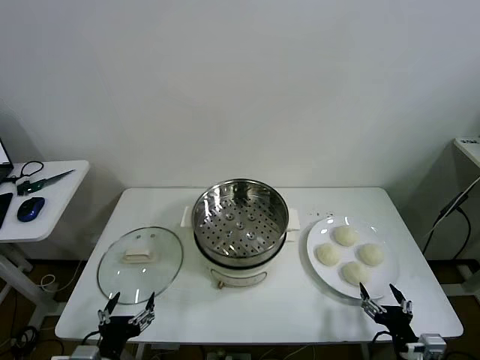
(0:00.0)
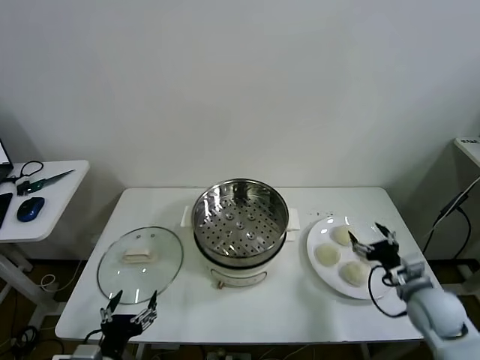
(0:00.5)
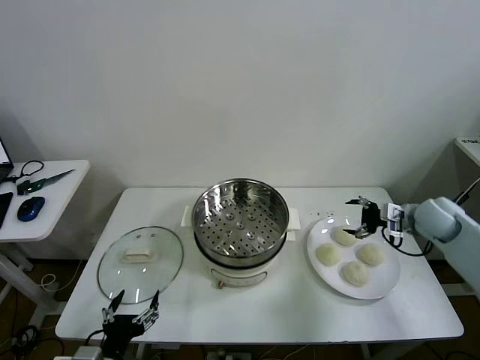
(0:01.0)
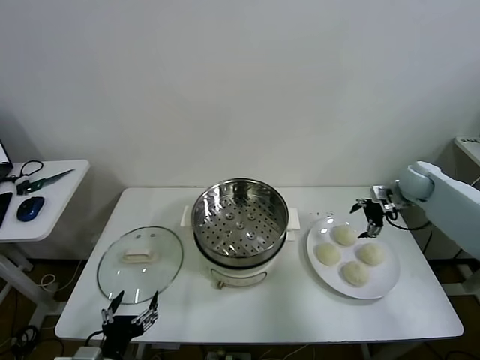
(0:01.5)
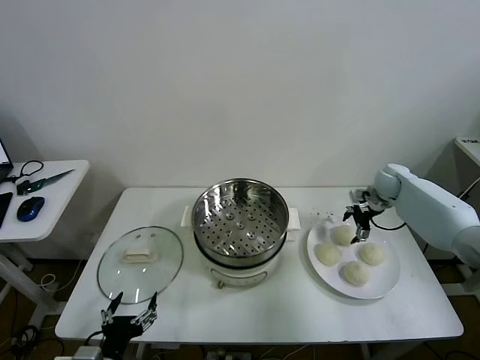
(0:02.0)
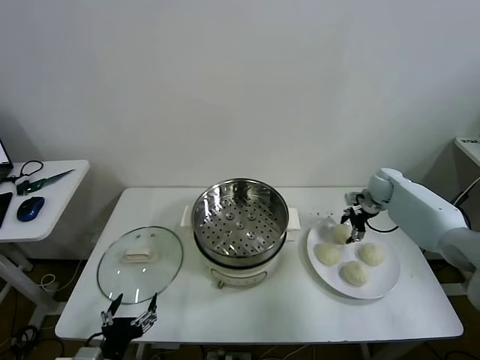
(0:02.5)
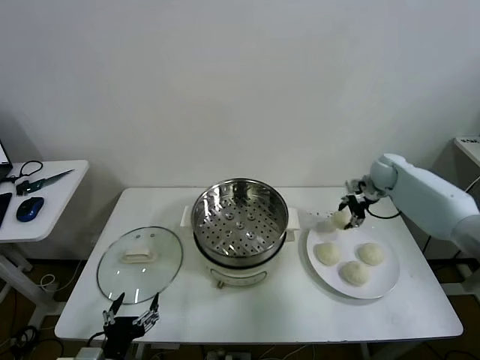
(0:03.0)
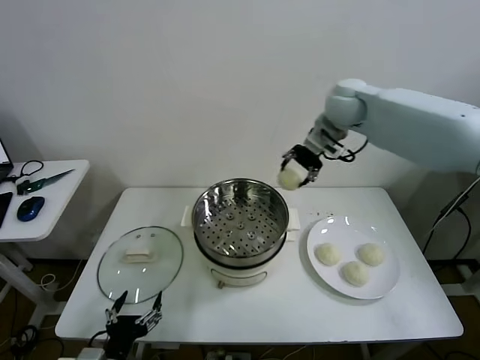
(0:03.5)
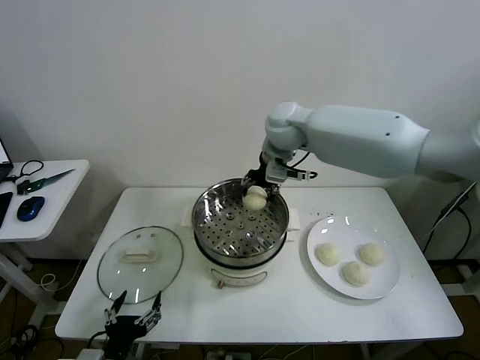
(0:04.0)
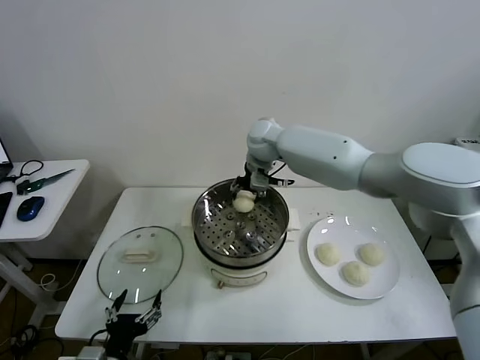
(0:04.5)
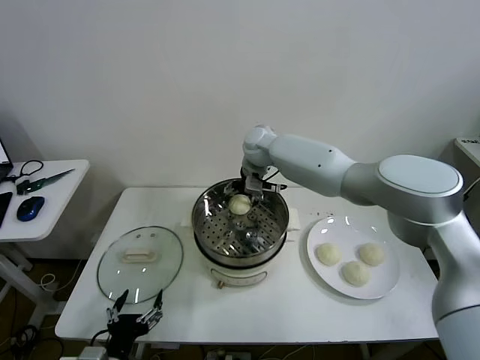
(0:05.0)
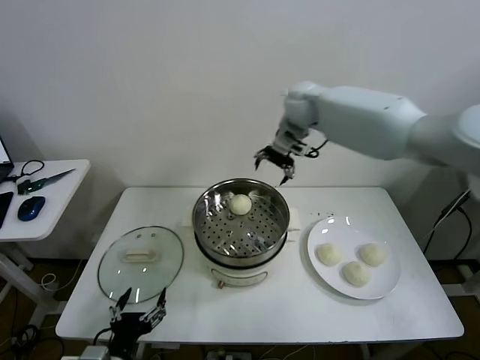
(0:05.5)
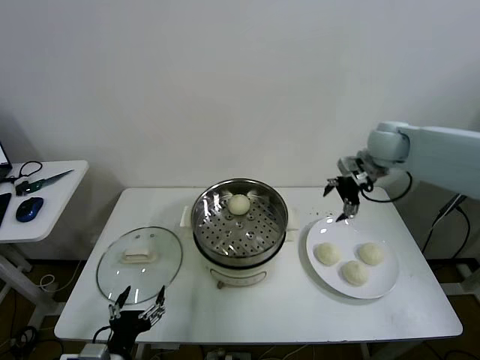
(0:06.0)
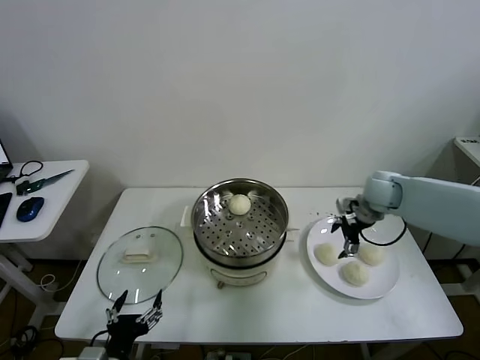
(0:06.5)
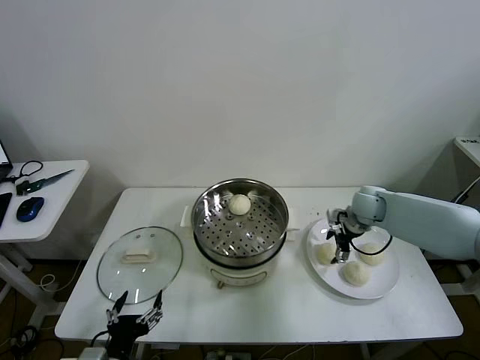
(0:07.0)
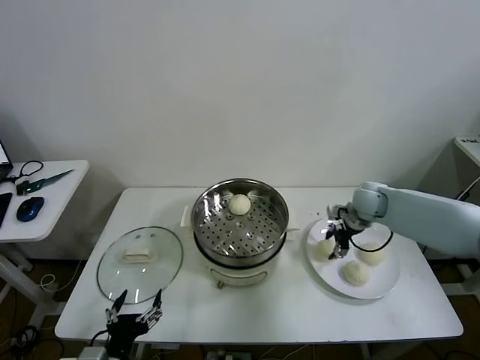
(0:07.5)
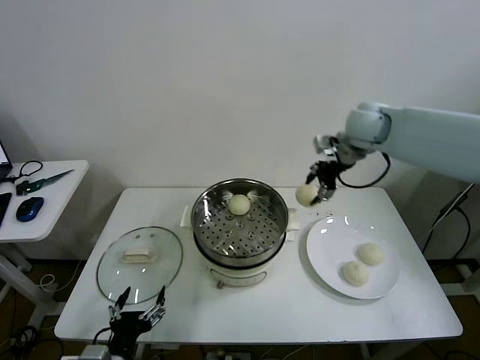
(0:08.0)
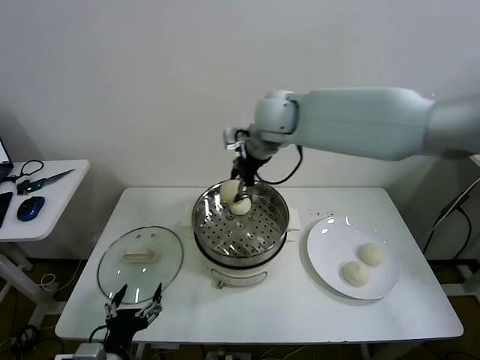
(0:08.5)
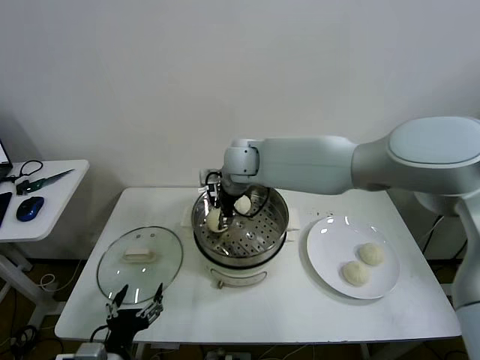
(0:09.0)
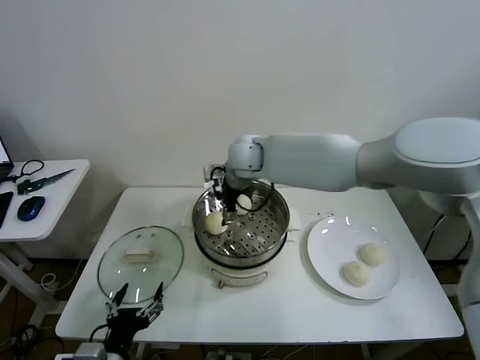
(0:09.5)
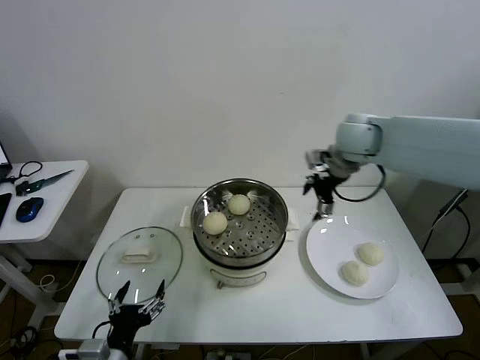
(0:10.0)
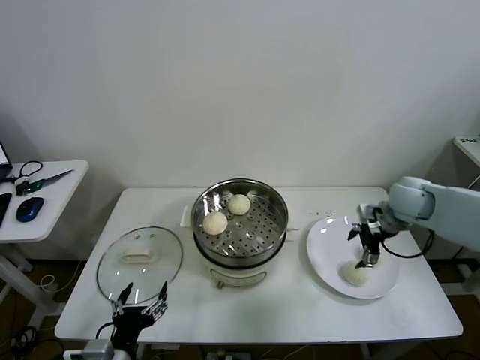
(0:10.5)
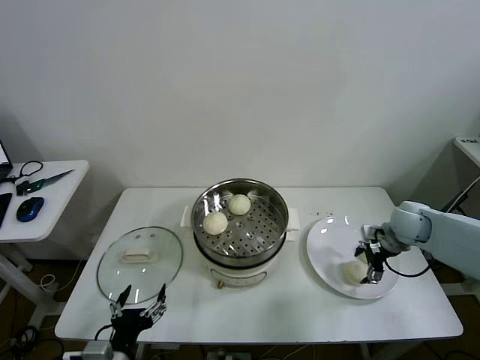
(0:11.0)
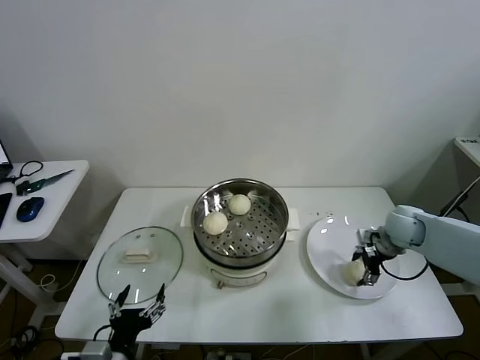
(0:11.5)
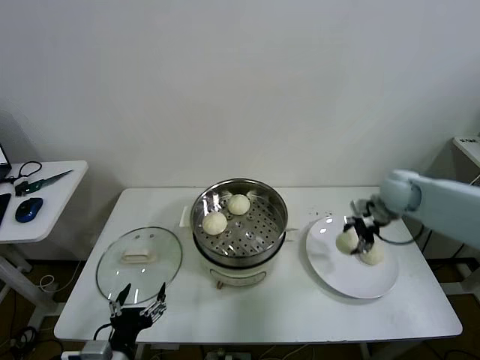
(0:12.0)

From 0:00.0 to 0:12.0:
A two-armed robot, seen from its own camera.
Task of the whole recording: take steamed baozi put them in steamer then cover it.
Step, from 0:00.0 to 0:02.5: Grasp the baozi in the plate with right gripper.
Step, from 0:03.0 to 0:05.0: Place the baozi on the steamer with right gripper.
Step, from 0:05.5 to 0:07.0: Grasp the baozi in the plate with right gripper.
Step, from 0:07.5 to 0:09.0: Place the baozi on the steamer with right gripper.
Step, from 0:09.5 to 0:11.5: Grasp the baozi in the plate with right gripper.
From 0:02.0 to 0:04.0: The right gripper travels to the left and upward by about 40 cm, and closes up.
From 0:04.0 to 0:06.0: The right gripper shifts some 25 cm to the right, and opens.
From 0:06.0 to 0:08.0: The right gripper moves to the left and upward, roughly 15 cm, and closes.
From 0:08.0 to 0:10.0: The right gripper heads downward, covering approximately 5 cm, travels to the left and back again, roughly 25 cm each way, and opens its fingers.
From 0:10.0 to 0:12.0: The right gripper goes roughly 15 cm downward and to the right, and closes up.

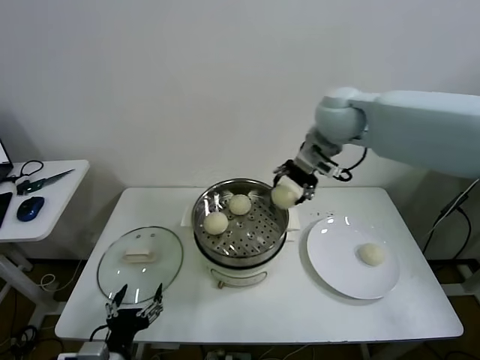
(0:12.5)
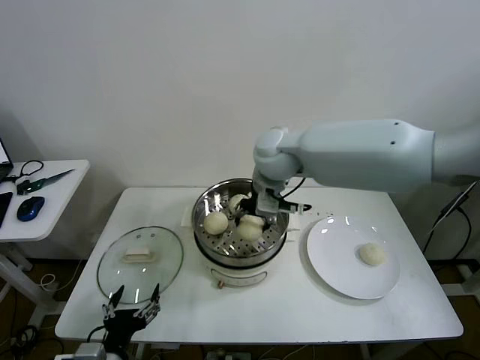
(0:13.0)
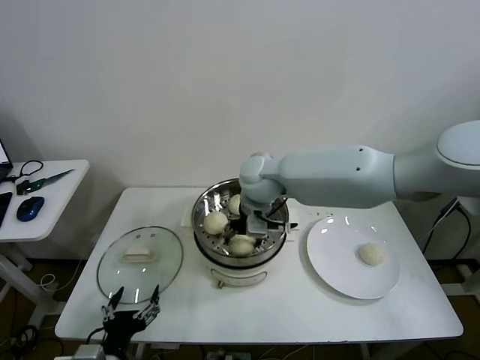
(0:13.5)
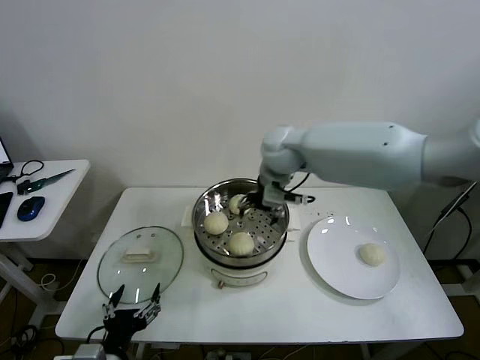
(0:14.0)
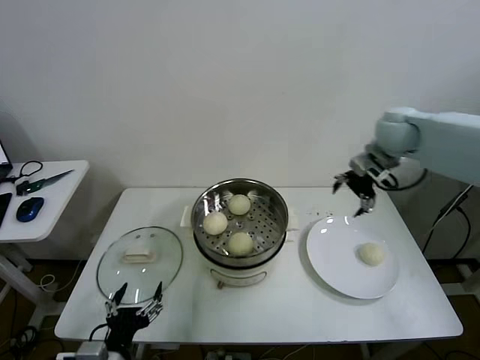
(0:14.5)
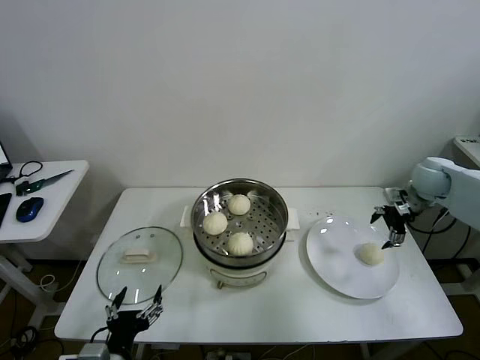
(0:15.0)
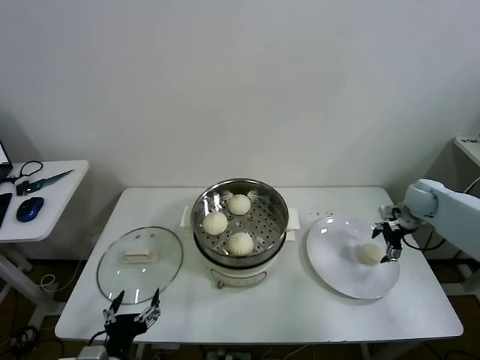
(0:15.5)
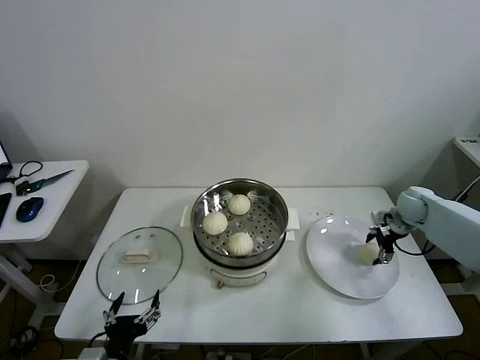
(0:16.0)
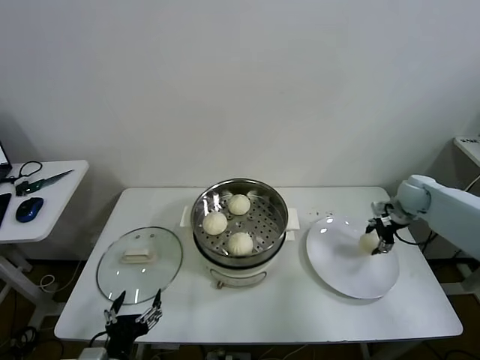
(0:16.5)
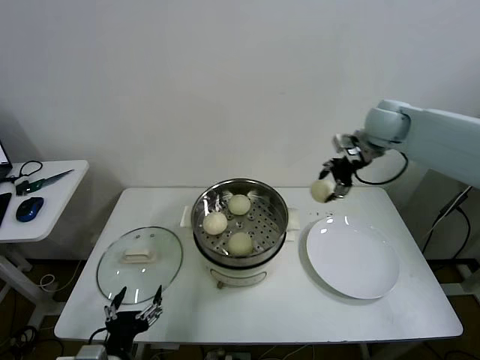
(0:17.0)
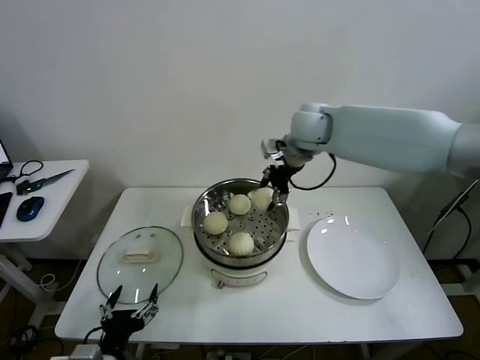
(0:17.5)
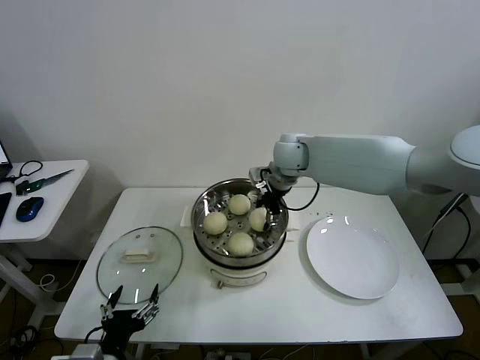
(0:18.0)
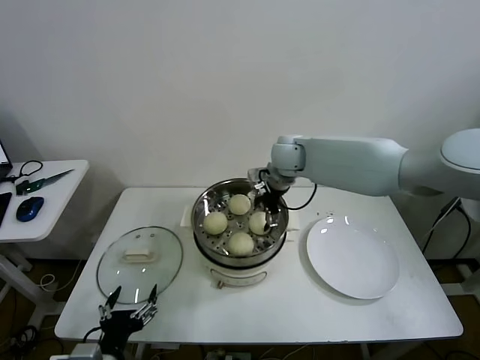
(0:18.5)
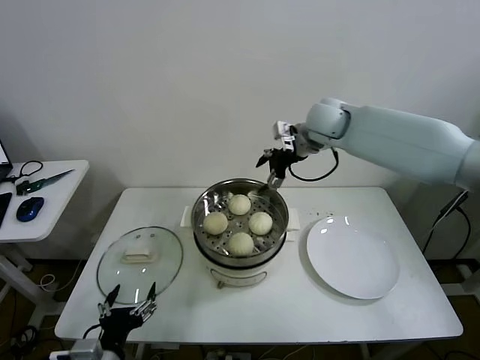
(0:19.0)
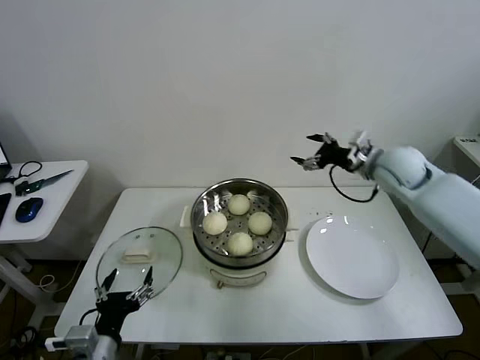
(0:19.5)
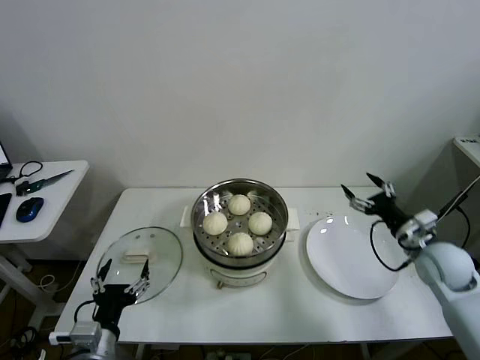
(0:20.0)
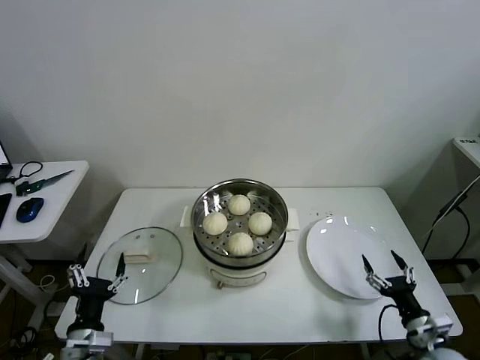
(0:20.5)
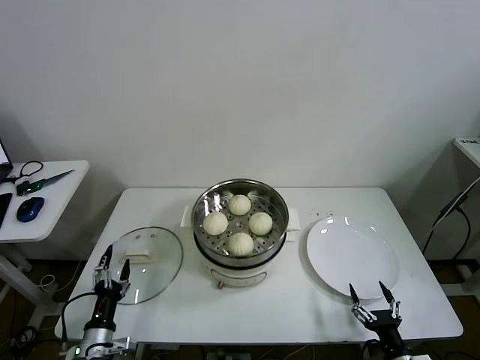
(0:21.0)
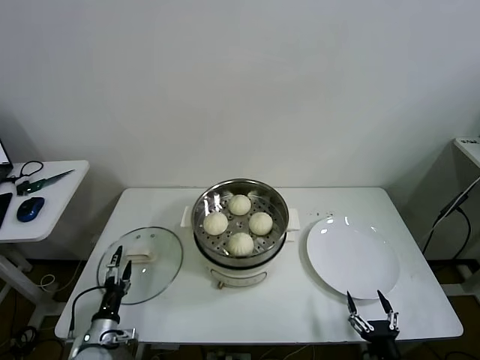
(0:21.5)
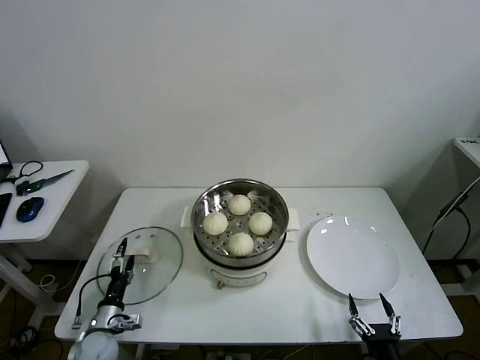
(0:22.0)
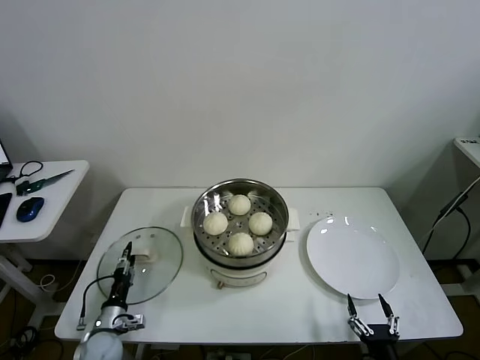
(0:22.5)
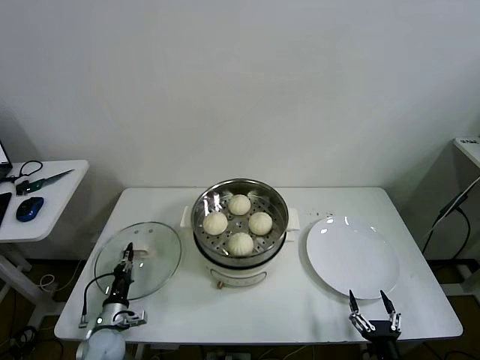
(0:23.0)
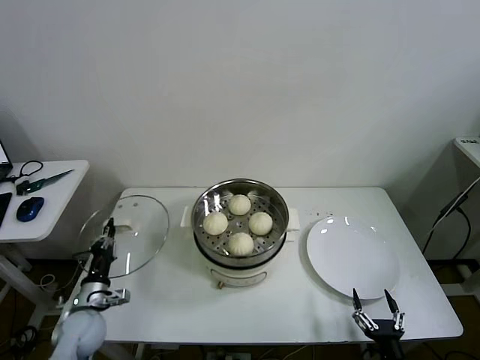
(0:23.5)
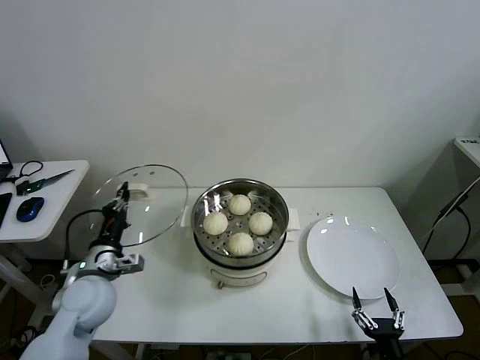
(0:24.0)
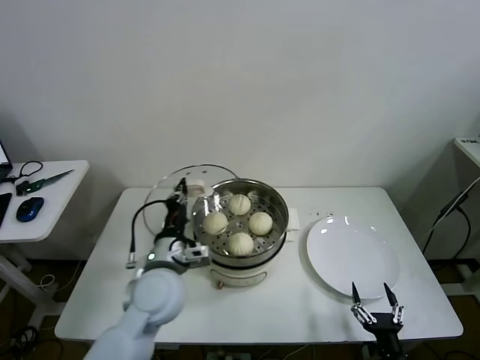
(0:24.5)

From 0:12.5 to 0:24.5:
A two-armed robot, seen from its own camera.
Task of the whole recording: take steamed baozi put them in steamer then cover it.
Step, from 0:14.0 to 0:16.0: Grasp the baozi in the plate with right gripper.
Step, from 0:16.5 to 0:18.0: Place the baozi on the steamer with right gripper.
Step, from 0:18.5 to 0:22.5: Grasp the pot lid with left gripper.
From 0:12.5 to 0:14.5: The right gripper travels to the right by approximately 20 cm, and opens its fingers.
From 0:14.5 to 0:16.5: The right gripper travels downward and to the right by roughly 20 cm, and closes.
From 0:16.5 to 0:18.5: The right gripper travels to the left by some 35 cm, and opens up.
From 0:18.5 to 0:20.5: The right gripper travels backward, to the right and downward by some 60 cm. The left gripper shifts by about 5 cm.
From 0:20.5 to 0:22.5: The right gripper is displaced backward, to the left and downward by some 15 cm. Meanwhile the left gripper heads downward and forward, covering approximately 20 cm, and closes up.
From 0:22.5 to 0:24.5: The left gripper goes some 30 cm upward and to the right, and closes up.

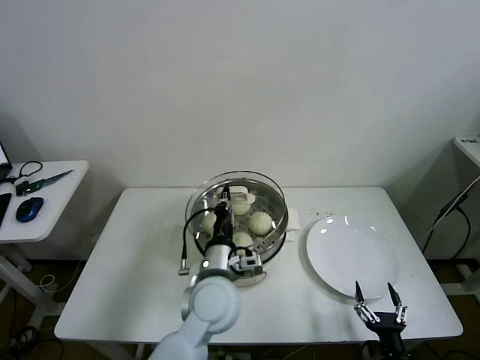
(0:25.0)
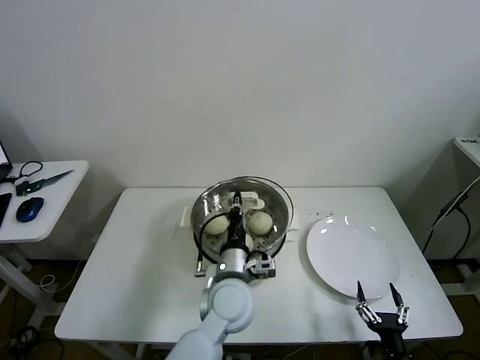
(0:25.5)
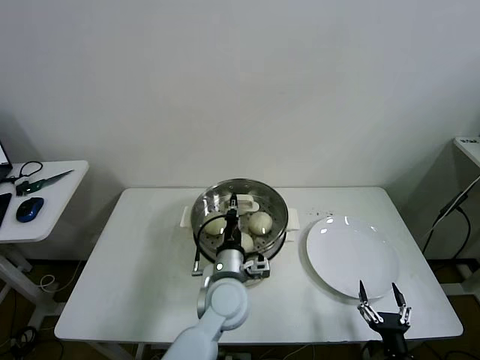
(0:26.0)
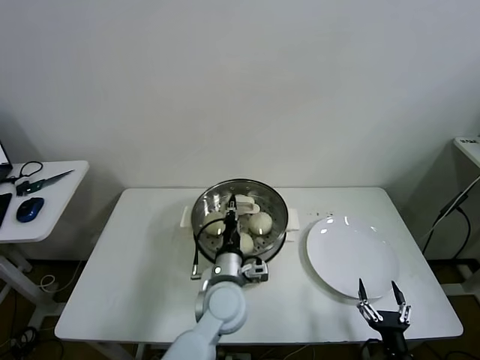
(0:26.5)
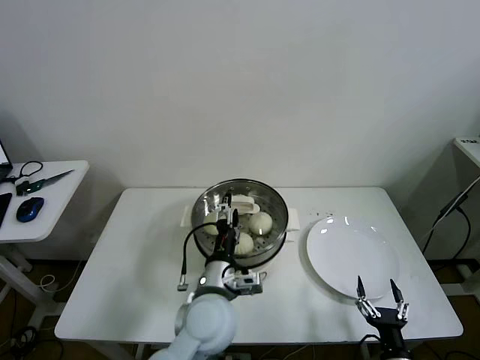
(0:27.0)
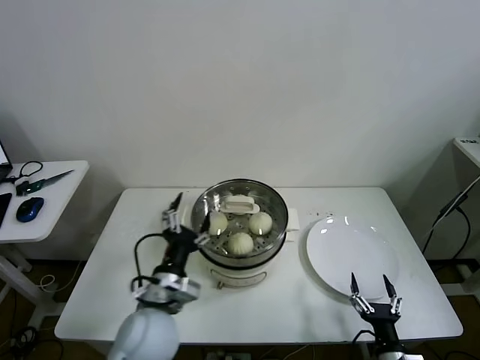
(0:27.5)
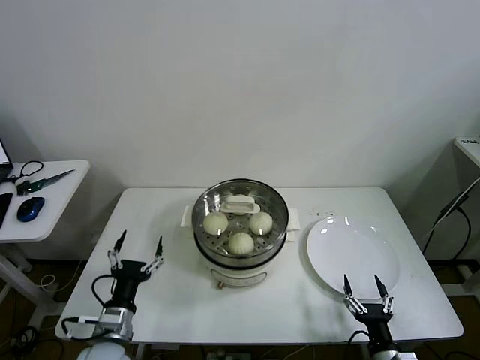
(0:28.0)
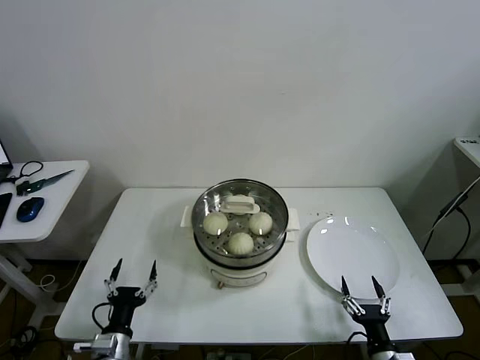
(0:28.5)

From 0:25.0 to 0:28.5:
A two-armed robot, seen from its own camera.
Task of the whole recording: take steamed baozi put them in steamer then cover it.
Step, from 0:25.0 to 0:27.0: Place the pot lid on the steamer with left gripper.
From 0:25.0 to 0:27.0: The left gripper opens up.
From 0:27.0 to 0:28.5: The left gripper moves to the left, downward and backward, approximately 30 cm.
